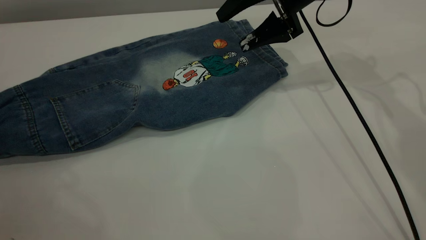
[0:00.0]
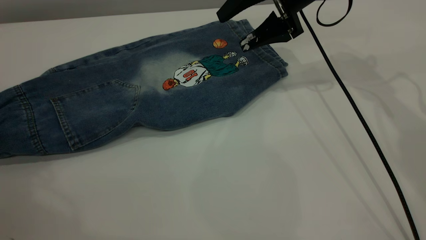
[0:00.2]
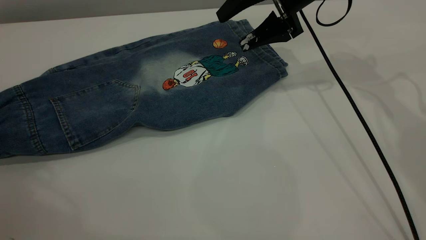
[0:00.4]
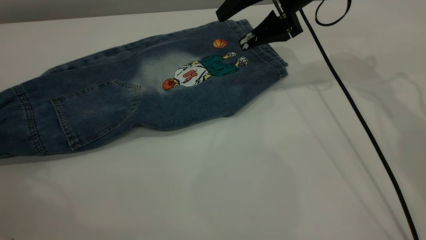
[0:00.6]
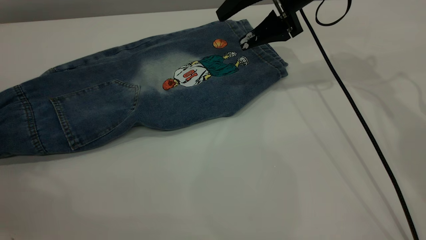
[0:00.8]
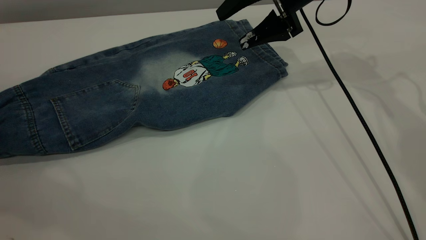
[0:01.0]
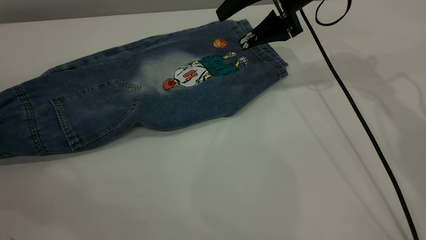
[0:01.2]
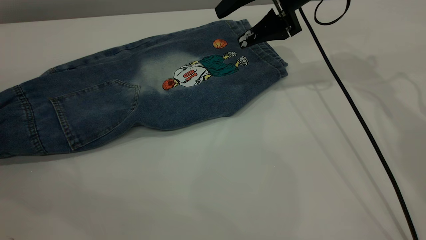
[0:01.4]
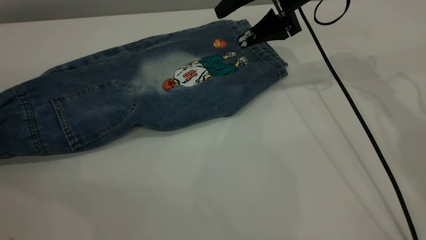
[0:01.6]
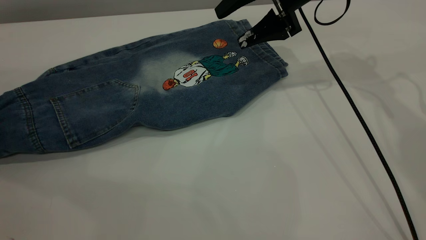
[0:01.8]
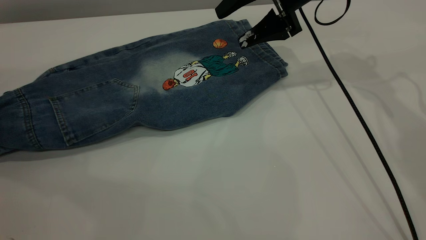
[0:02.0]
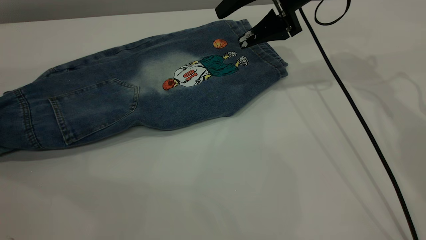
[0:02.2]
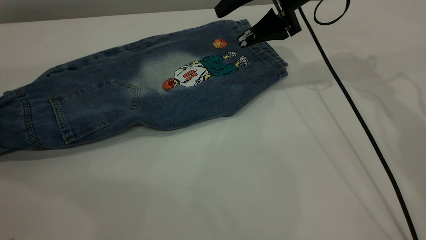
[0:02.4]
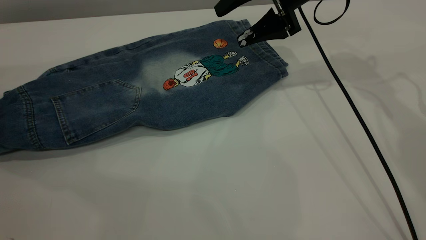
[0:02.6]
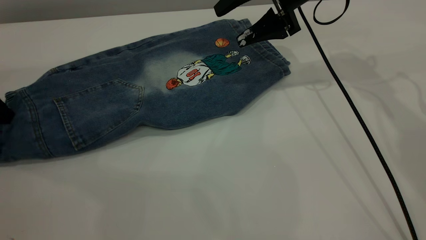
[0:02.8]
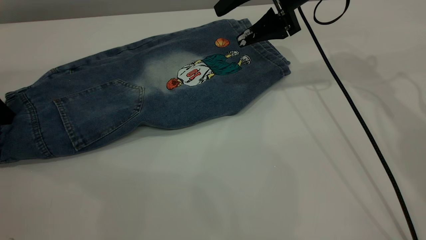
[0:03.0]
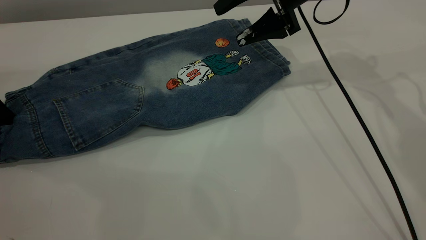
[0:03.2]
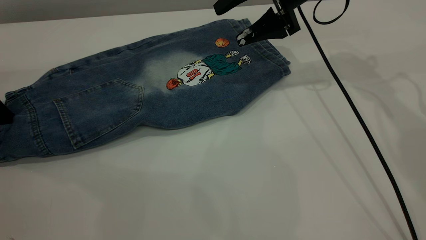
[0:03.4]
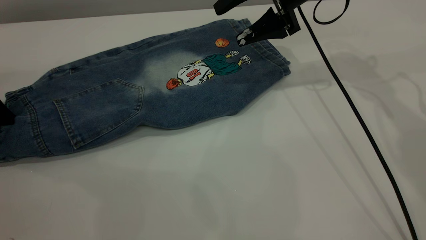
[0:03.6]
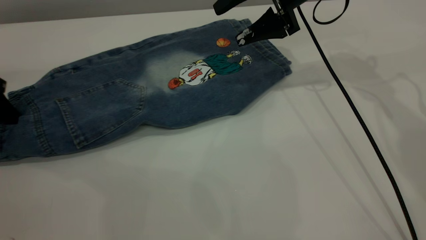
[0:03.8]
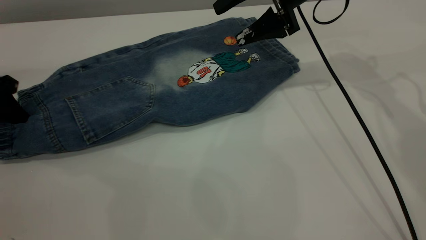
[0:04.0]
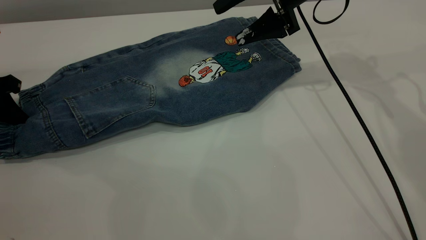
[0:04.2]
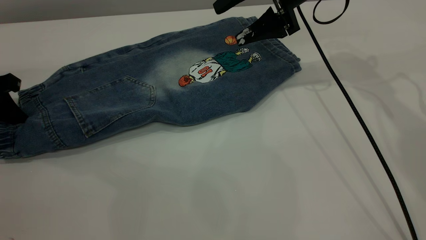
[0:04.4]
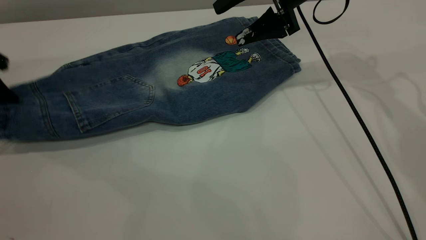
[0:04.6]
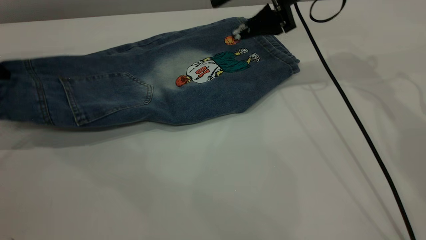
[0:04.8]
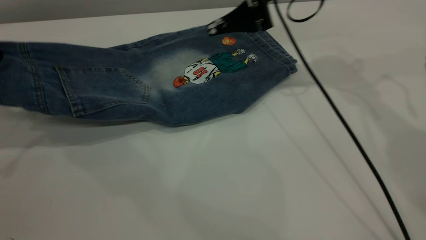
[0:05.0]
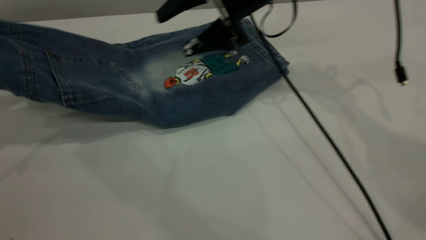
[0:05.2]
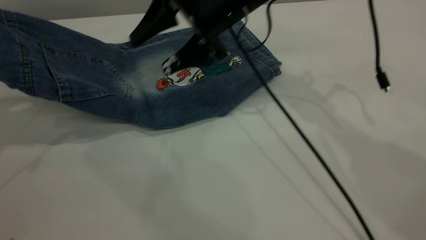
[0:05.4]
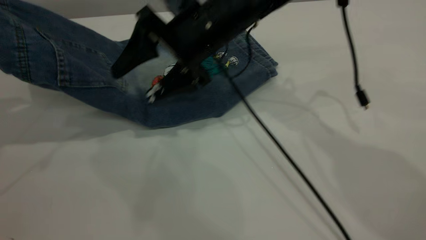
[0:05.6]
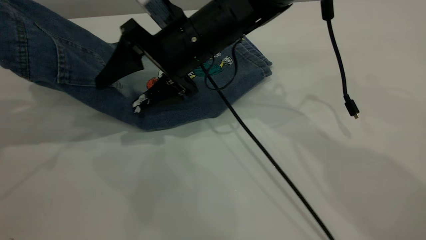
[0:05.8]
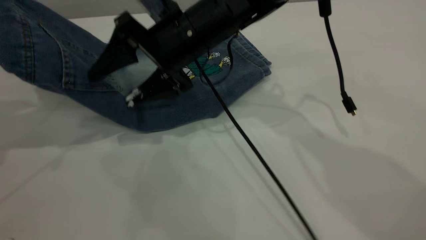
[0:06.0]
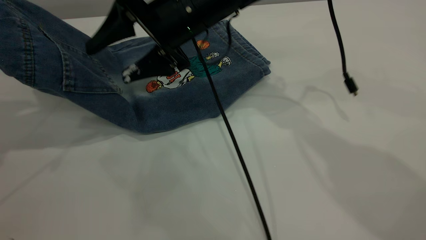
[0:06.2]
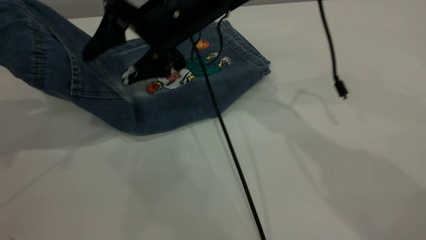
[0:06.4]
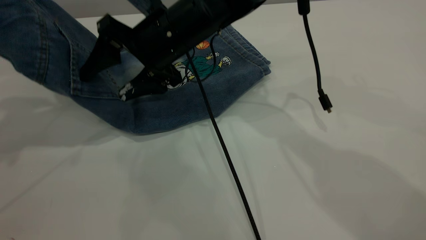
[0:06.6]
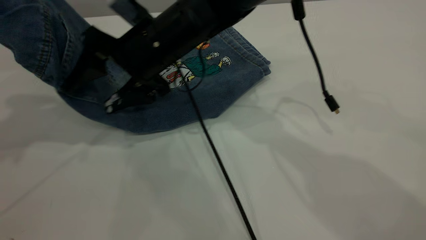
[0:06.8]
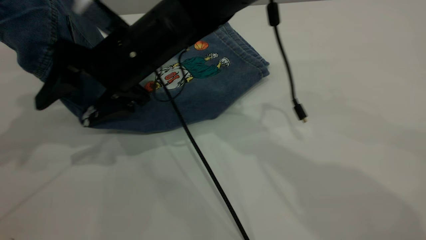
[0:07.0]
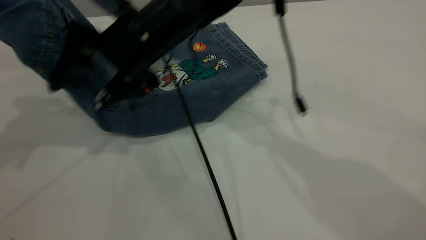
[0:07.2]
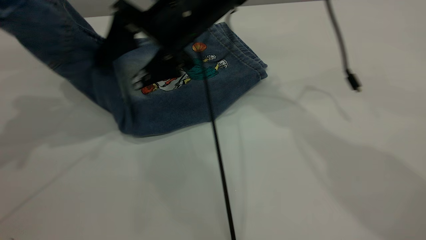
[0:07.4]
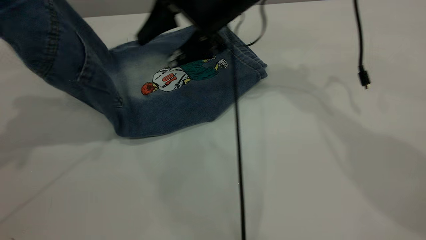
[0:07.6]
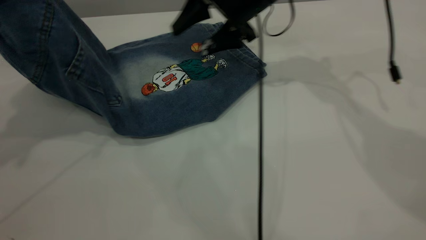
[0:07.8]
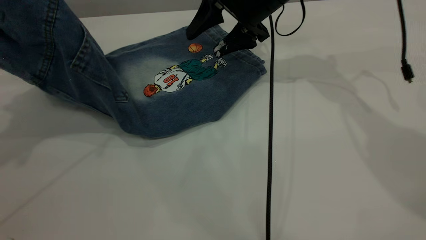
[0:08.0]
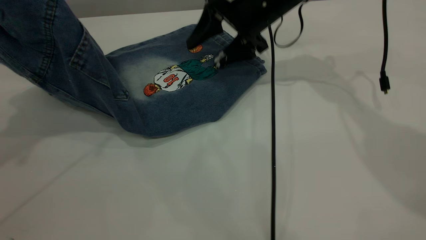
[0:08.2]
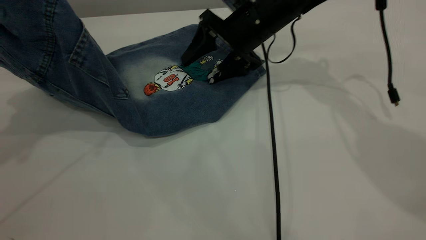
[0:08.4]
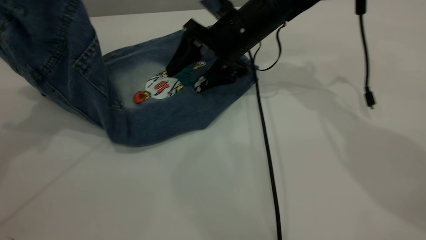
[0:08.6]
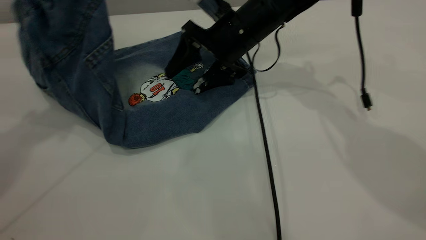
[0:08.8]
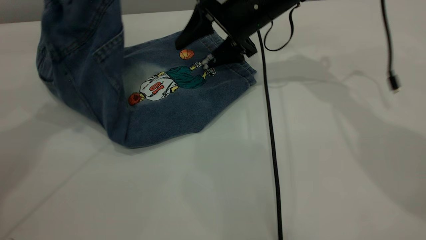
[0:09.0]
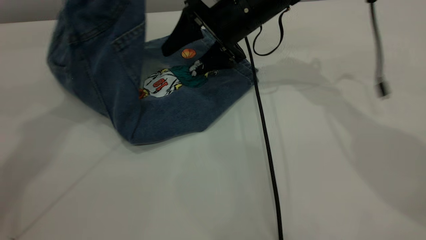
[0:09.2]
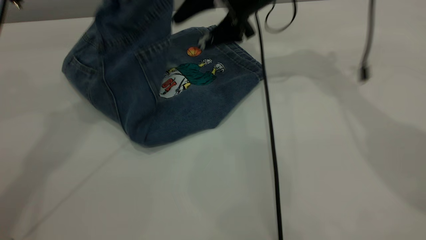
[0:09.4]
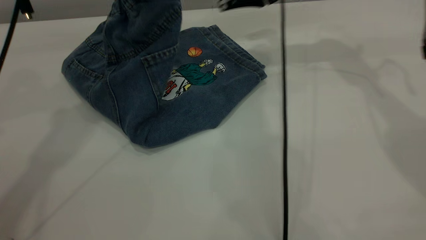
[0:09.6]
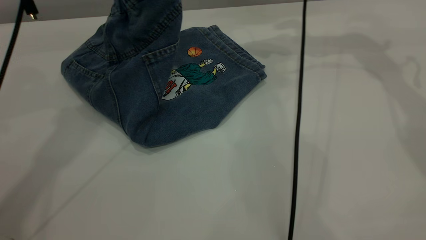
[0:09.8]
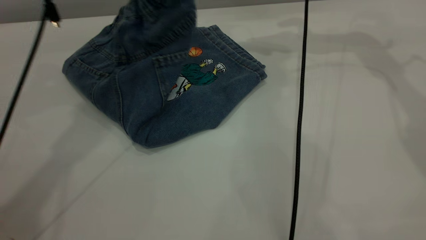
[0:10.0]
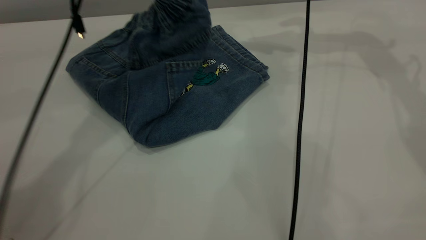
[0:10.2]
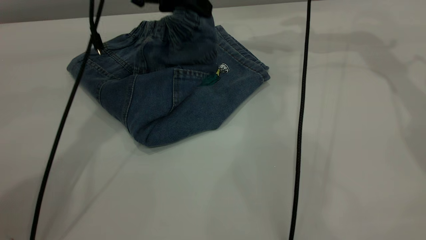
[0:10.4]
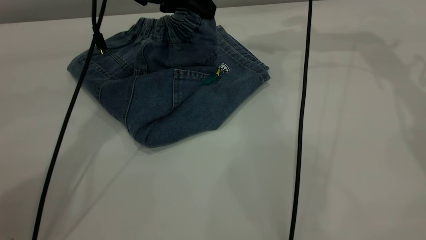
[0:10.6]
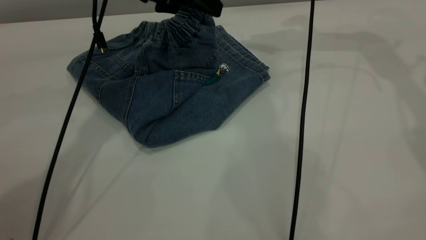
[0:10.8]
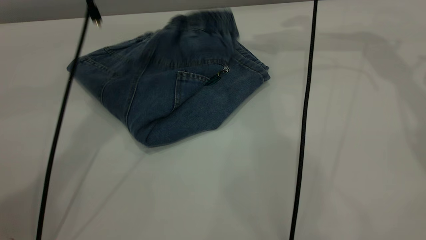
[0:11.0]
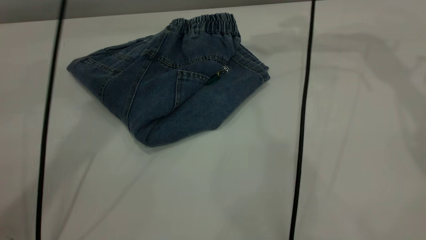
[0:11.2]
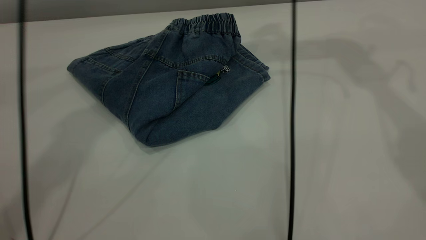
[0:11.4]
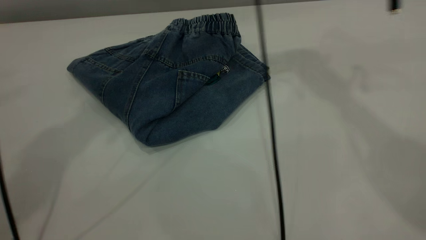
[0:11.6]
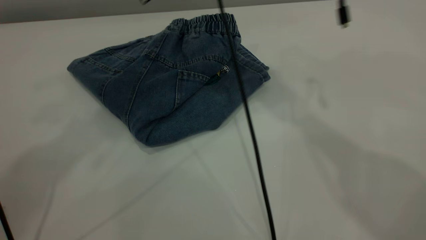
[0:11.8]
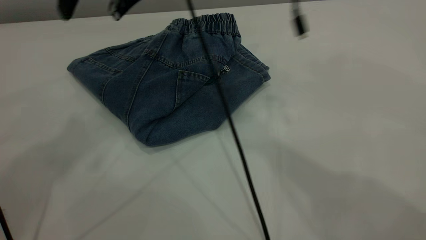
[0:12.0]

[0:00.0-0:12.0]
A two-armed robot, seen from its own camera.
Step, 0:00.0 to 0:11.2: Fold the pants from left to right.
0:00.0 to 0:01.6: The left gripper is displaced forward and downward by some 10 cm.
0:01.6 to 0:03.0: There are only small adjustments of the grippers.
0:03.0 to 0:04.4: The left gripper closes.
0:04.4 to 0:06.0: The right gripper is displaced to the left and backward by some 20 cm, while the left gripper goes some 20 cm upward.
0:06.0 to 0:07.6: The right gripper moves forward and to the right, approximately 10 cm.
0:07.6 to 0:09.0: The left gripper is displaced to the right and forward by some 10 cm.
0:09.0 to 0:10.4: The right gripper travels to the right, upward and forward by some 15 cm, while the left gripper moves to the right and downward, about 15 cm.
0:10.4 to 0:12.0: The left gripper moves upward, some 30 cm, and opens up. Meanwhile the right gripper goes roughly 30 cm to the left and backward.

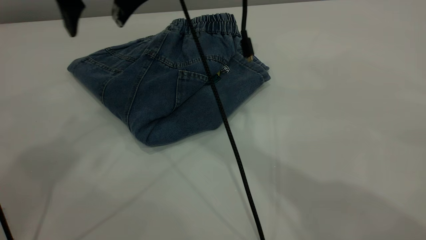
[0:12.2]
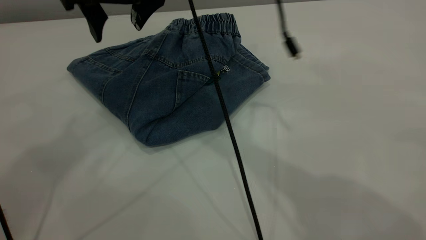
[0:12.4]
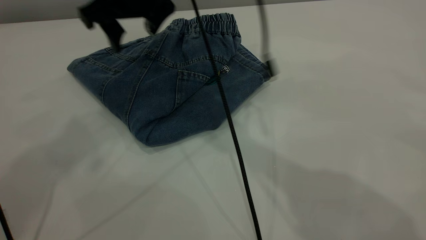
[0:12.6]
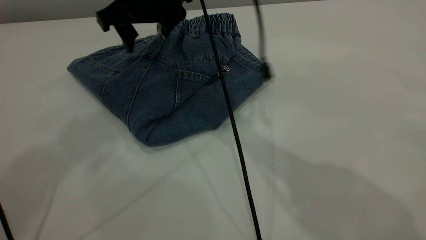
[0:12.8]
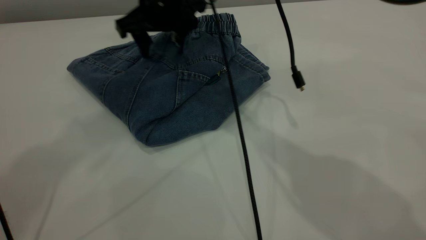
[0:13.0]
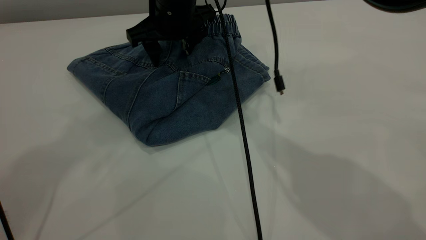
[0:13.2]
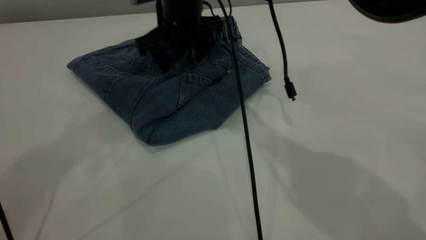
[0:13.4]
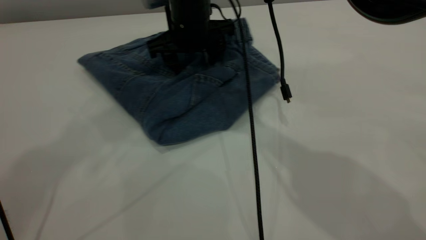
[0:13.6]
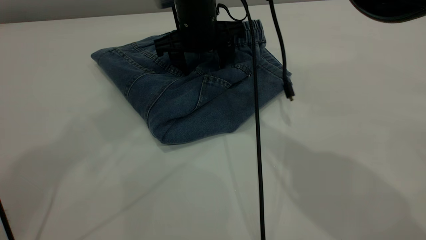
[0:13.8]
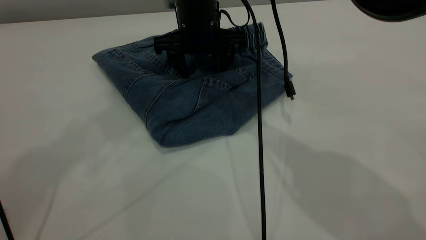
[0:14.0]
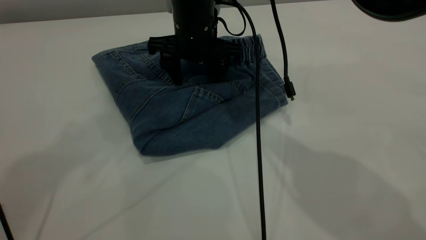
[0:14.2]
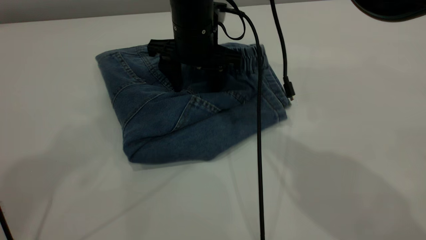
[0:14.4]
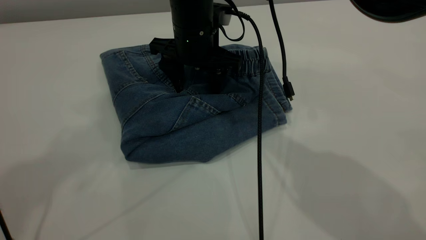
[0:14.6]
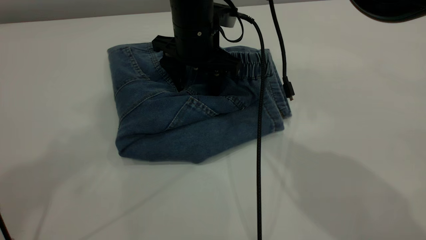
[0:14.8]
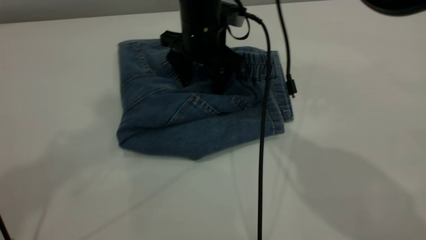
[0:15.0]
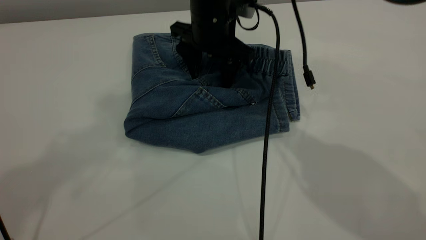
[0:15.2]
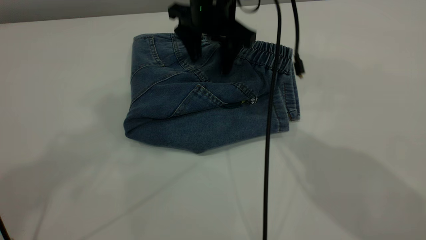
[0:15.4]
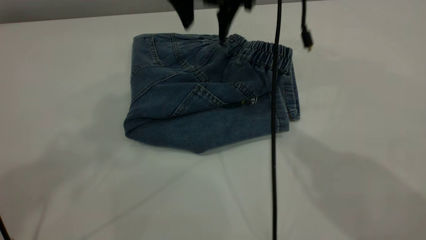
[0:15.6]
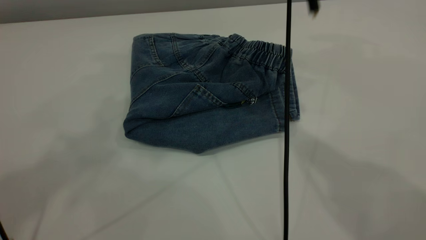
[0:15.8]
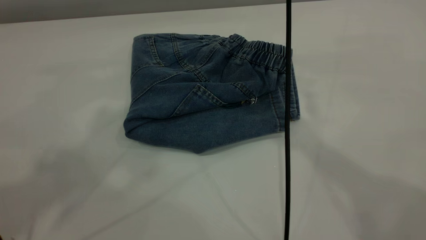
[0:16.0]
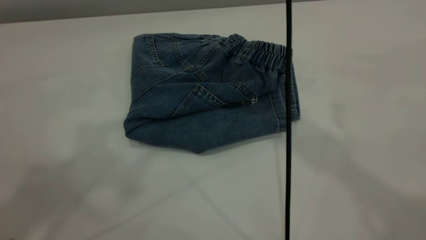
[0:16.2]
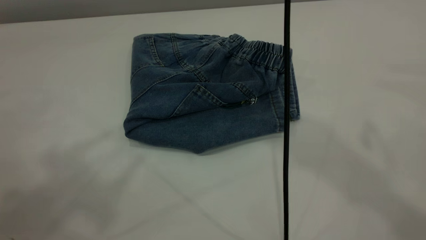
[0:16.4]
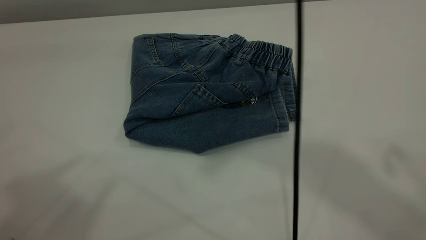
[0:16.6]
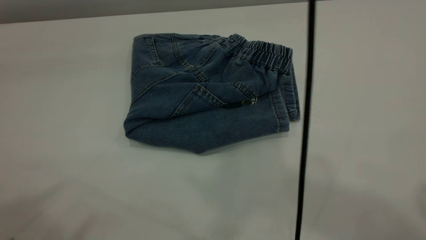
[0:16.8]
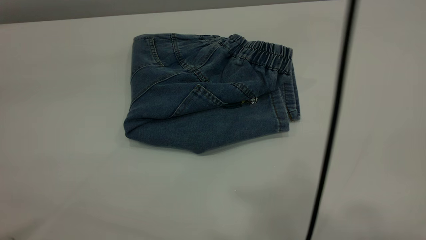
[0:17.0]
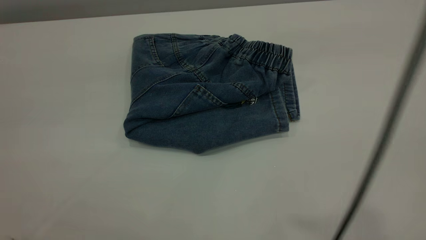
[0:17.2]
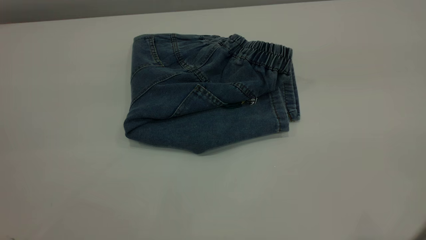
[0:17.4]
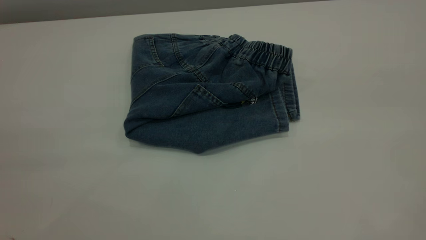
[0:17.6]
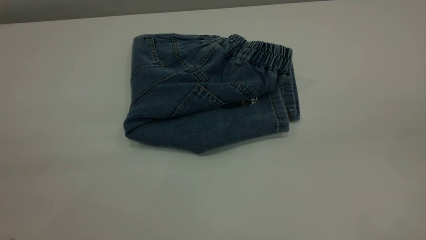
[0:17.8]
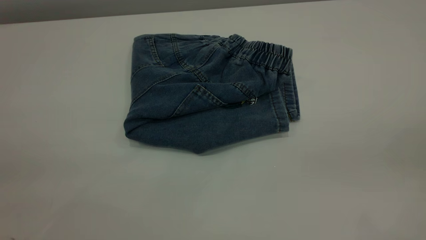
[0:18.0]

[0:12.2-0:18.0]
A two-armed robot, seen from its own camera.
0:12.2 to 0:13.6: The right gripper travels downward, forward and to the right by roughly 15 cm.
0:15.0 to 0:16.6: The right gripper travels upward by roughly 40 cm. Meanwhile the left gripper heads backward and to the left, covering about 15 cm.
0:16.6 to 0:18.0: The right gripper moves backward, to the right and downward, approximately 40 cm.
